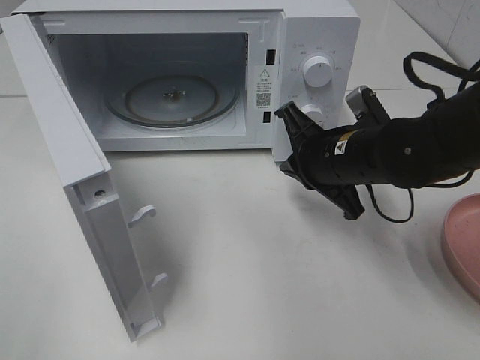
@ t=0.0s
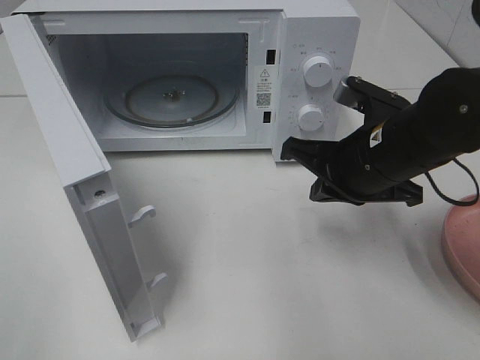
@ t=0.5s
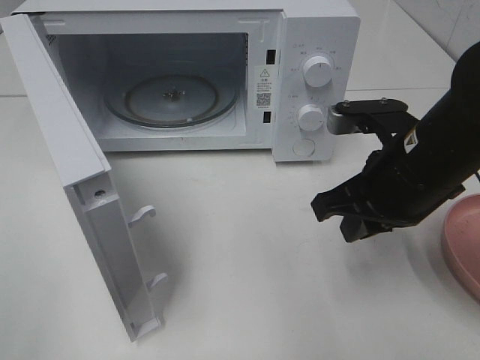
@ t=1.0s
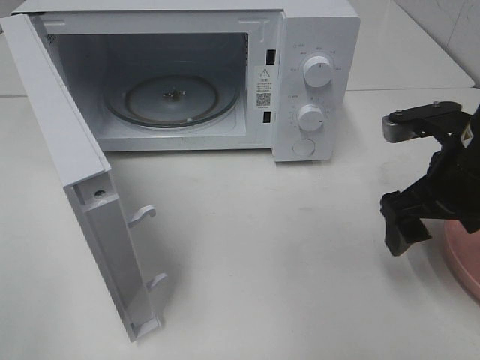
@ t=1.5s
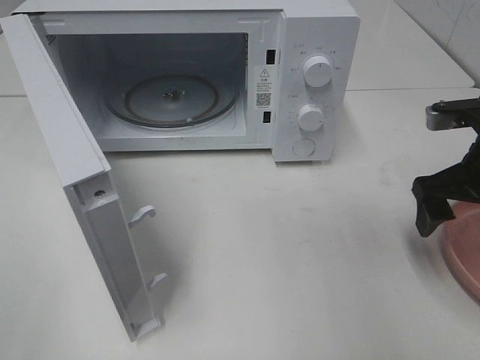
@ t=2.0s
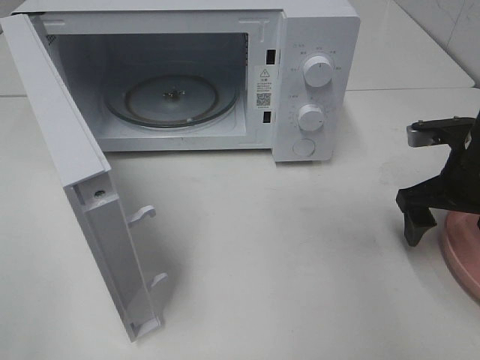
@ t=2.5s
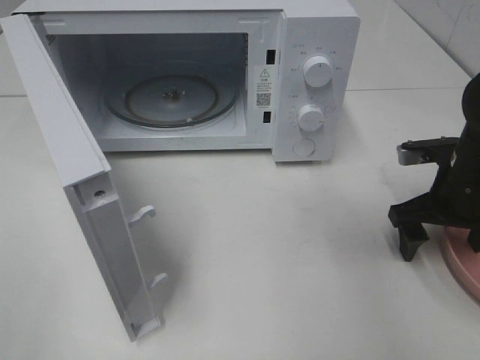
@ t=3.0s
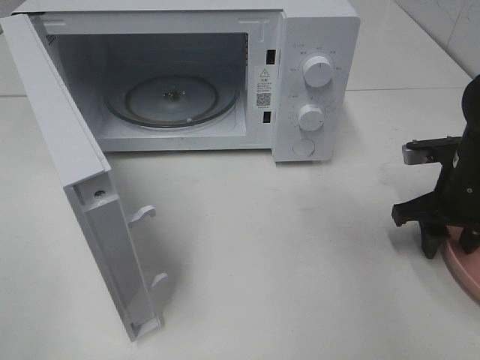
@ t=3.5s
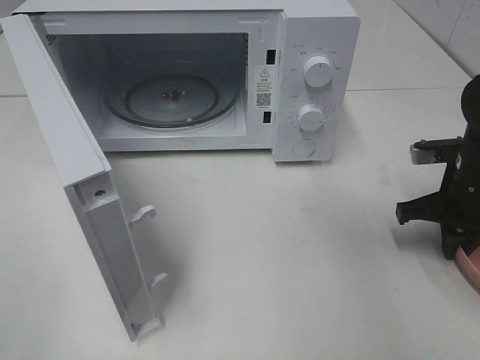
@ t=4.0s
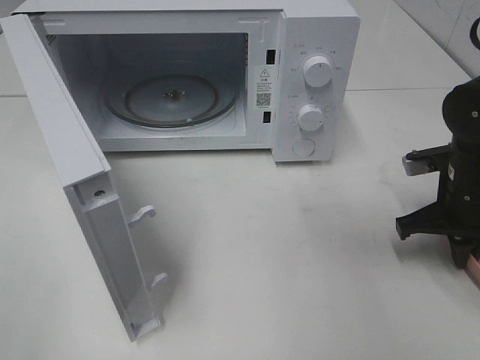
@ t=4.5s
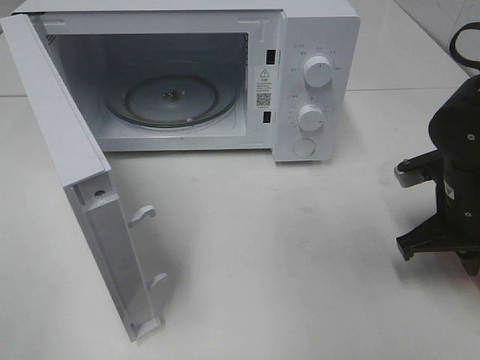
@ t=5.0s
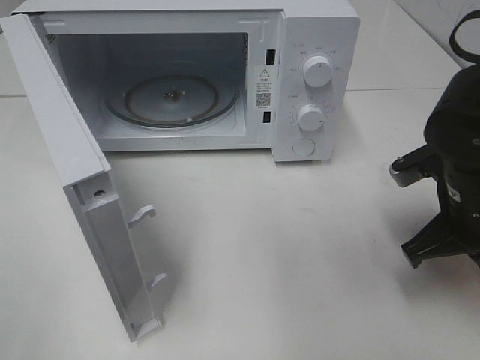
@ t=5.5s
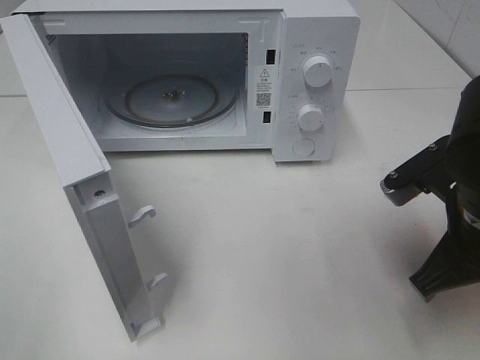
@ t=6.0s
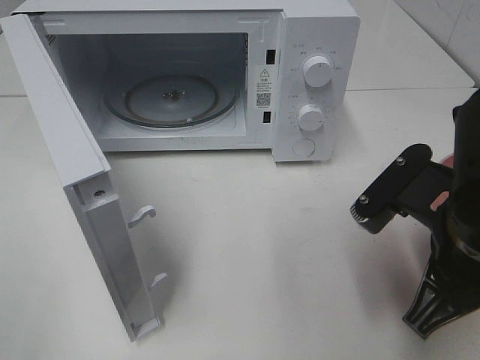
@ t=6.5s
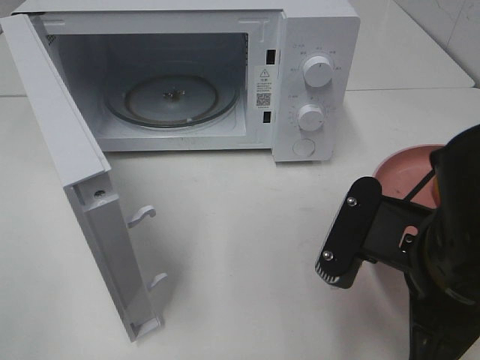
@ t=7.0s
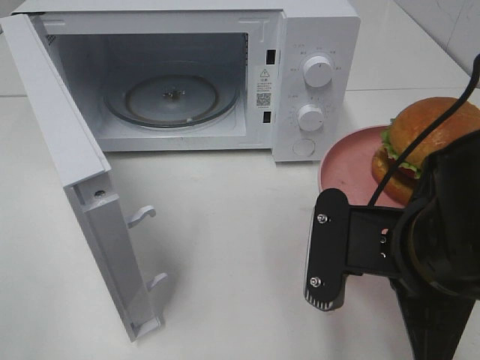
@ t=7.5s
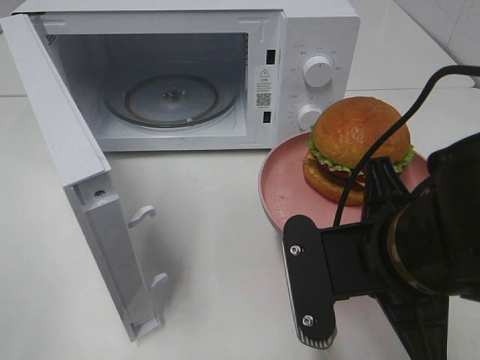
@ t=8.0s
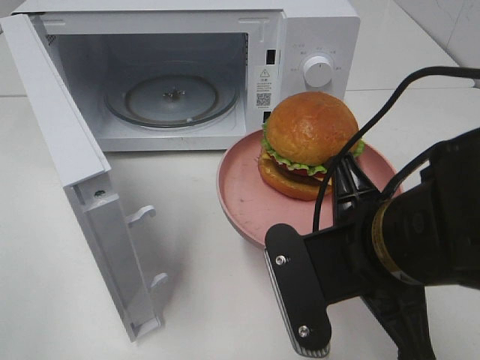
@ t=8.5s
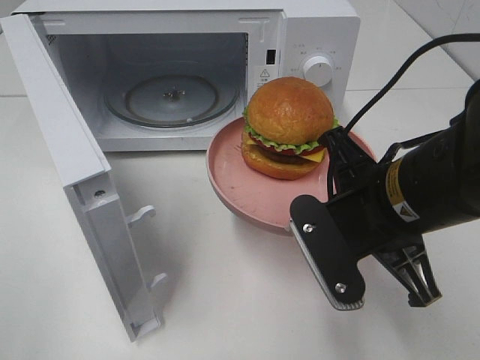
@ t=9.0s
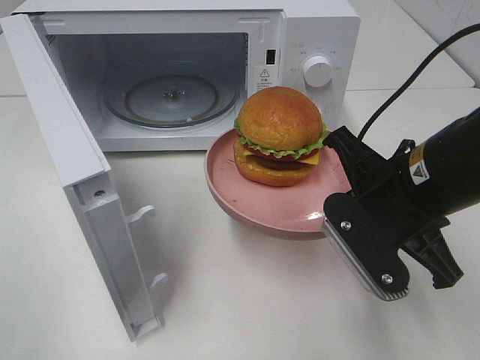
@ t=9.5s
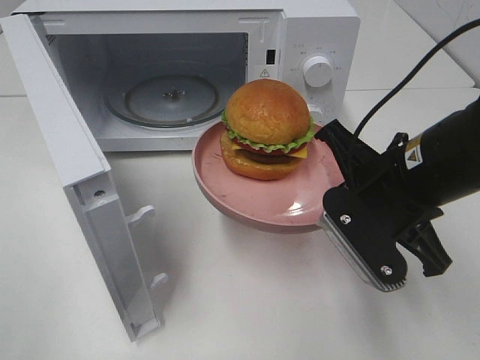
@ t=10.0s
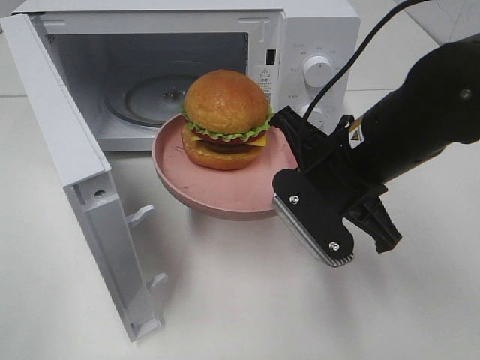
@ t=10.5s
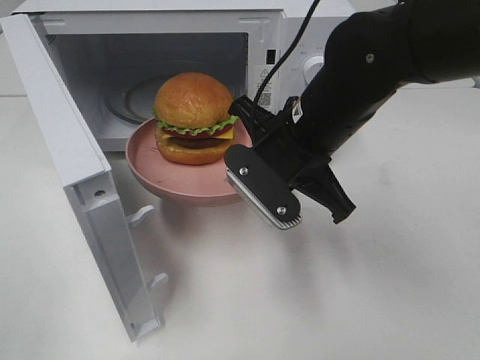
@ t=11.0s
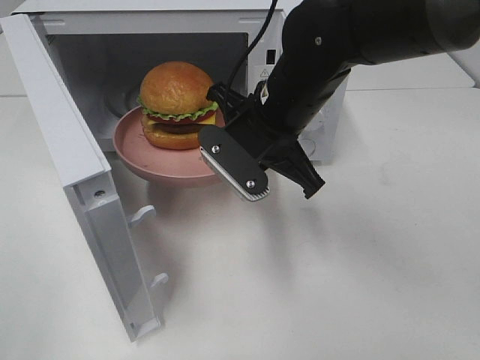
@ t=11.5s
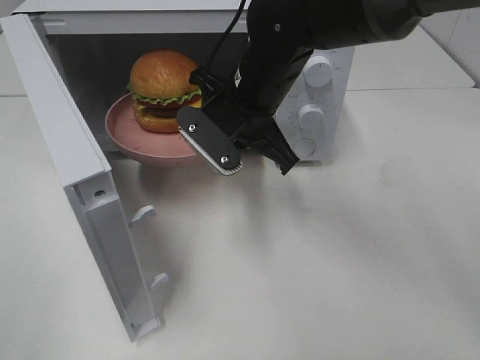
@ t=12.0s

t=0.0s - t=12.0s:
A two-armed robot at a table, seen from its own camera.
Task of the whole recording: Heat the burger.
Step, t=0.0s - t=4.5s: Right hand: grab the plate with the hamburger.
t=0.0s - t=2.0s: The right gripper travels to the right by about 15 cm, and opens.
t=2.0s - t=4.0s: The right gripper is displaced downward by approximately 5 cm, and closes.
t=4.0s - t=6.0s: The right gripper is displaced backward, to the left and upward by roughly 15 cm.
t=6.0s - t=8.0s: The right gripper shifts some 10 cm to the left and backward.
t=8.0s - t=10.0s: The right gripper goes some 10 cm forward.
t=10.0s - t=12.0s: The right gripper shifts about 20 cm forward and to the left.

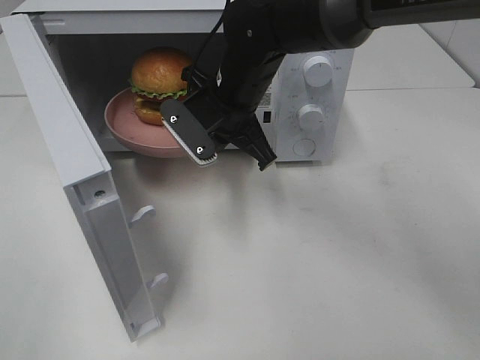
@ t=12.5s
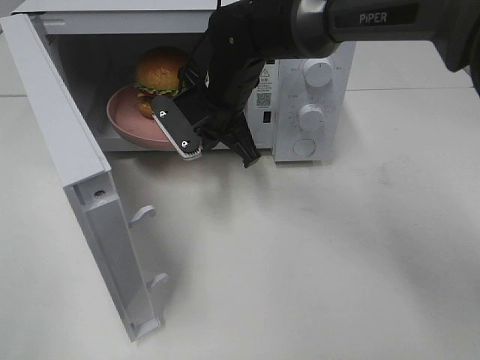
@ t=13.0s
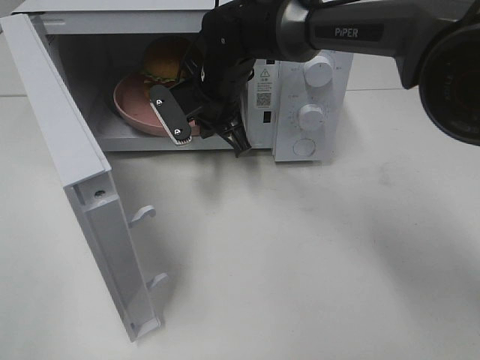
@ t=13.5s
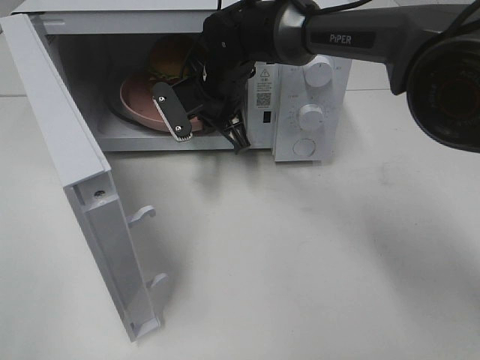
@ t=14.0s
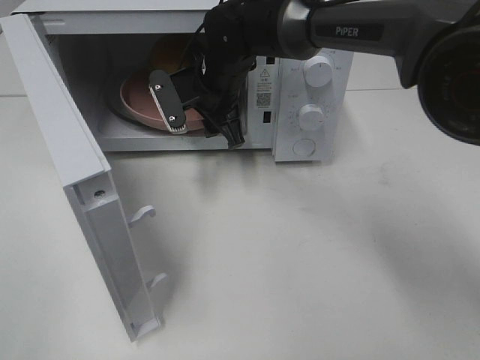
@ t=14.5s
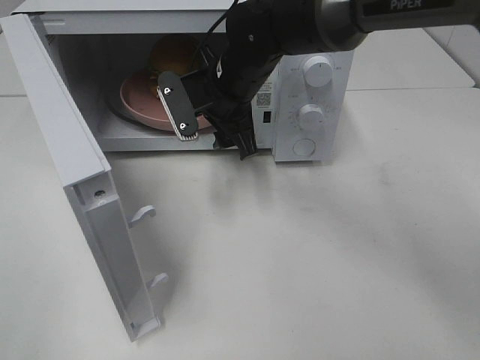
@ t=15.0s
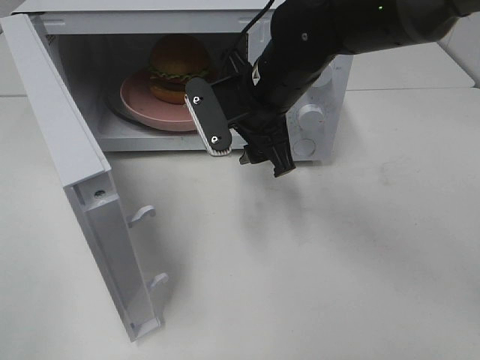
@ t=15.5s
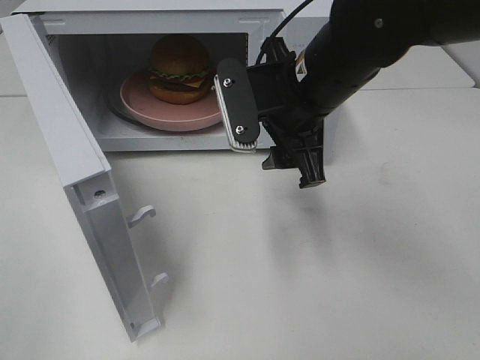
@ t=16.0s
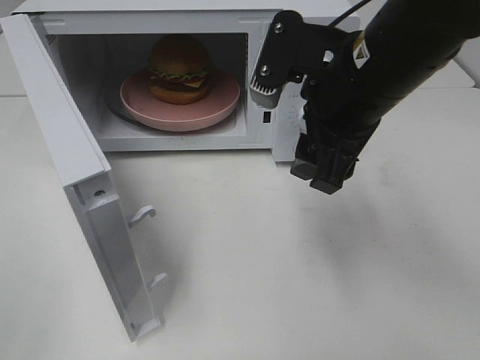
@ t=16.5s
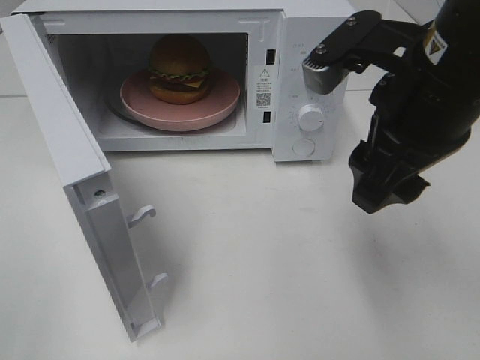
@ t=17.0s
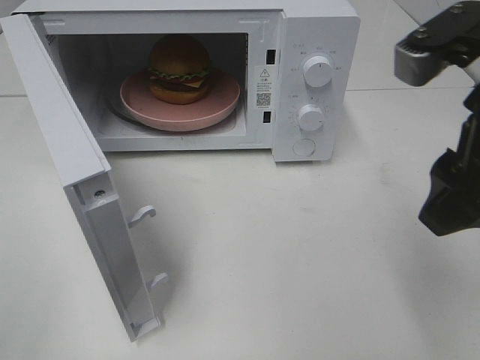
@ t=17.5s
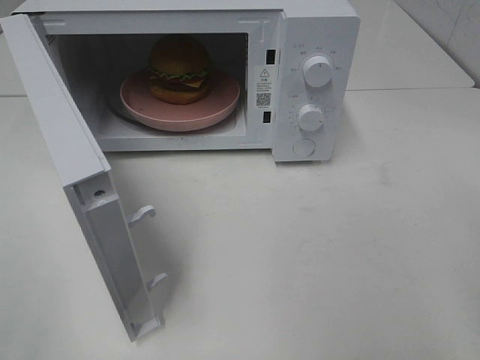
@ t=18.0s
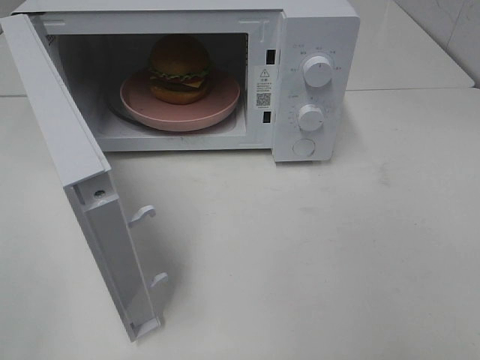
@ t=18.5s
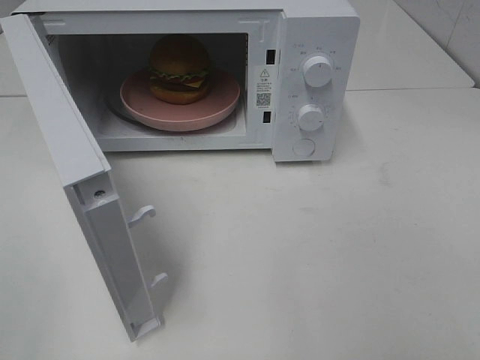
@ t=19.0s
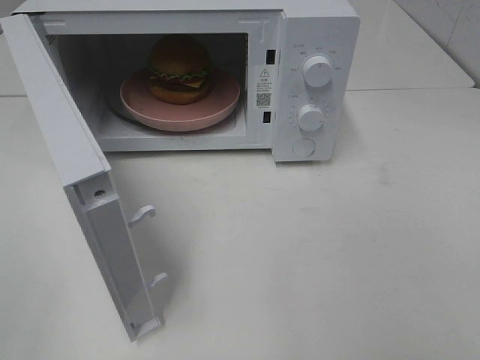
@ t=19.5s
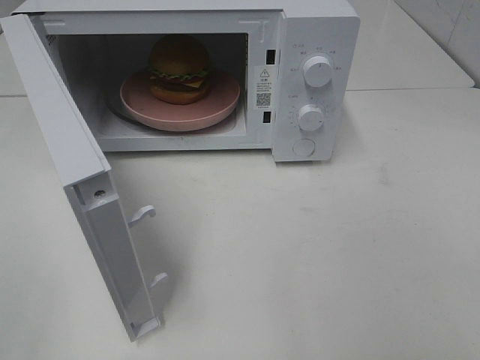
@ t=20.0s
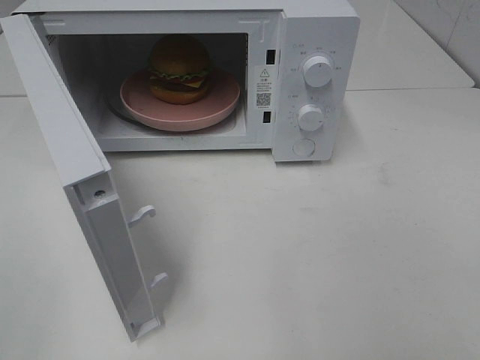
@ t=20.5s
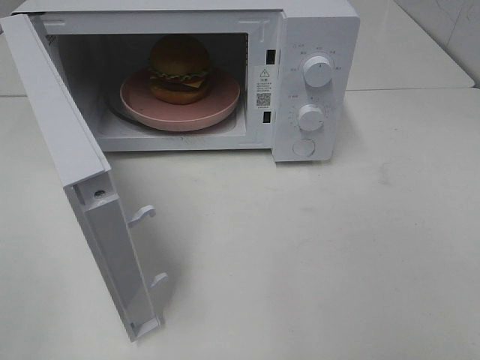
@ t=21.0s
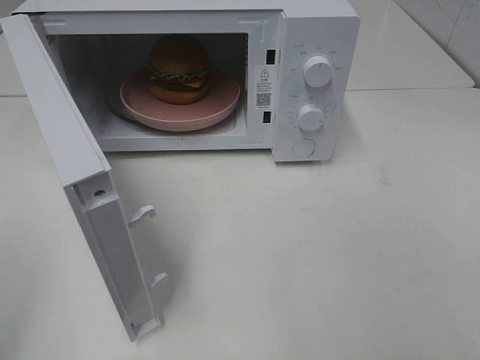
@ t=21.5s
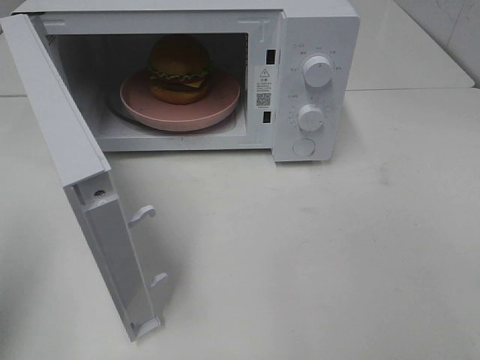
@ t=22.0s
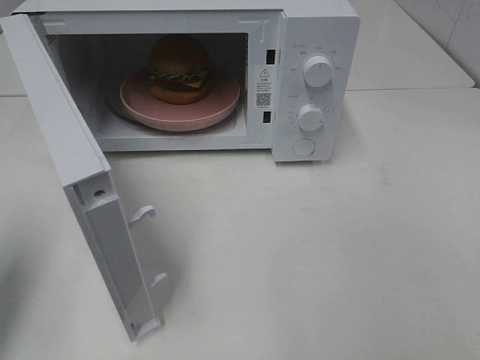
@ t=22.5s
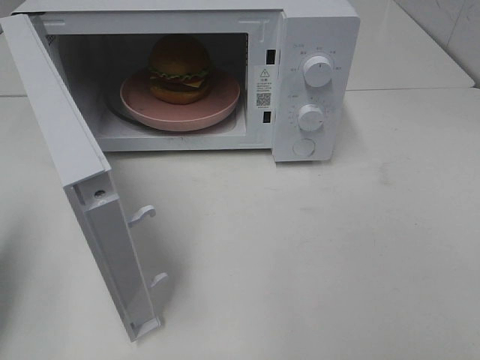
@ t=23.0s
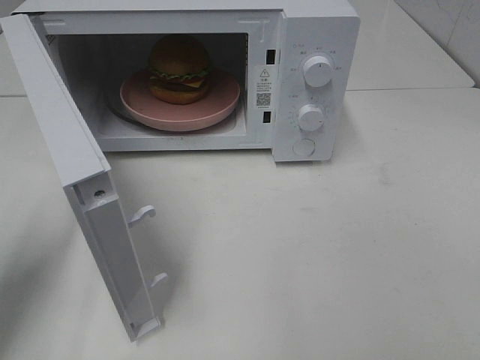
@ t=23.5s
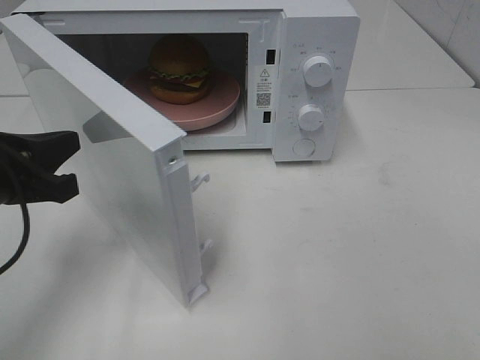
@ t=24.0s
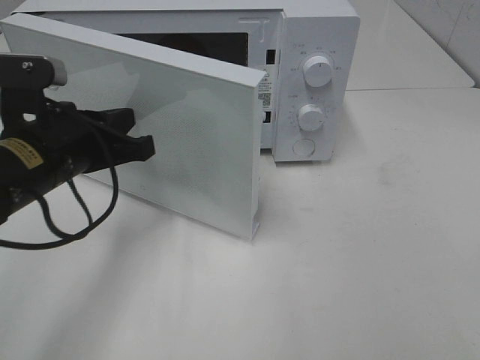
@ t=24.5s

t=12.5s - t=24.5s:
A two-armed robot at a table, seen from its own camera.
Task of the whole recording: Heat the burger.
Step, t=12.5s - t=14.5s: Right hand: place the plate in the microwave.
t=12.5s - t=14.5s: The right gripper shifts some 5 cm forward, and opens its fingers.
t=14.5s - t=16.5s: The right gripper moves backward, to the right and upward, approximately 25 cm.
t=16.5s - t=18.5s: The right gripper travels backward and to the right by roughly 25 cm.
t=20.5s - t=22.5s: The left gripper is displaced forward by some 15 cm, and closes up.
t=22.5s - t=24.5s: The left gripper shifts roughly 20 cm to the right, forward and downward.

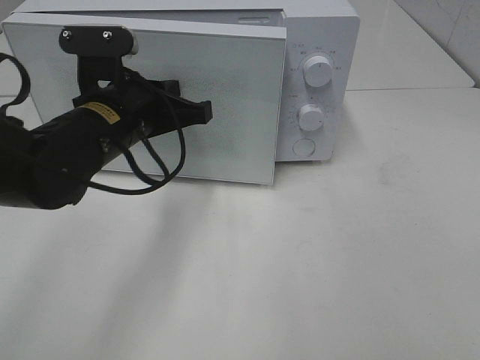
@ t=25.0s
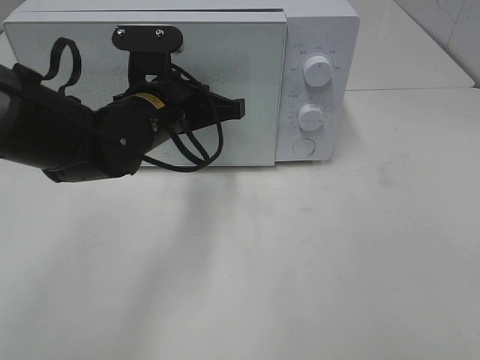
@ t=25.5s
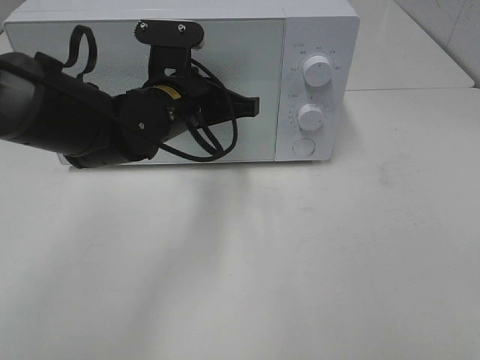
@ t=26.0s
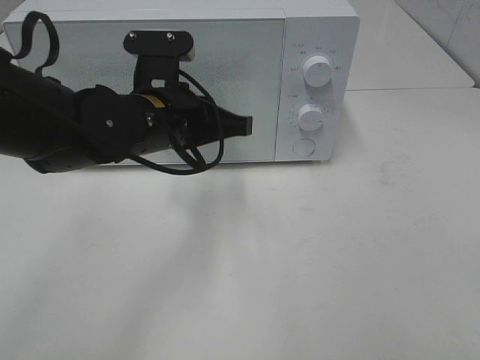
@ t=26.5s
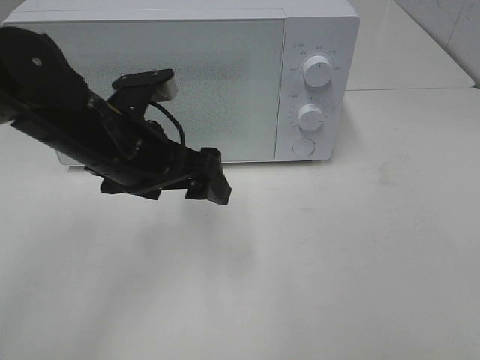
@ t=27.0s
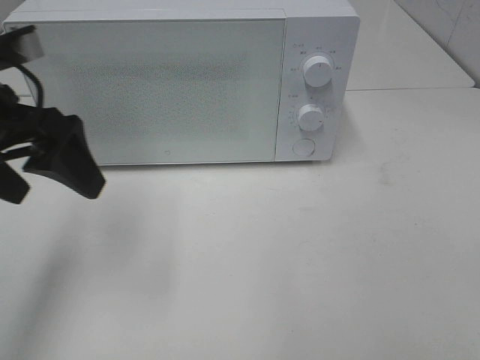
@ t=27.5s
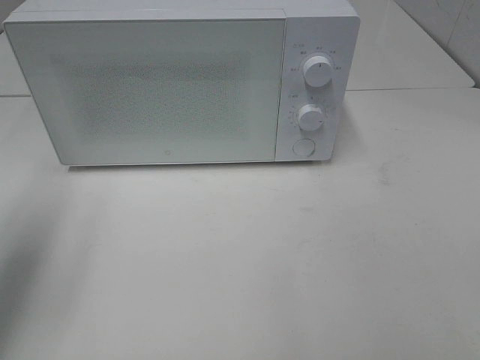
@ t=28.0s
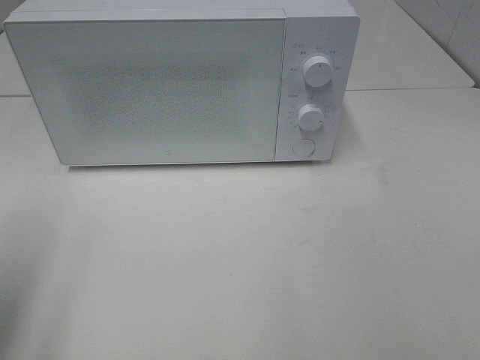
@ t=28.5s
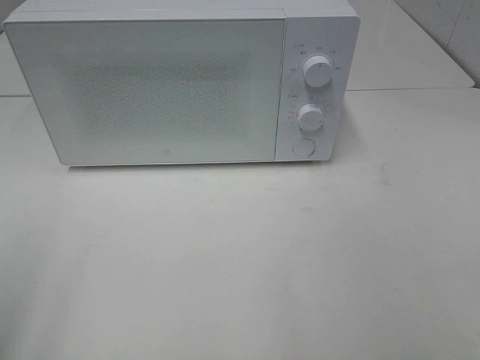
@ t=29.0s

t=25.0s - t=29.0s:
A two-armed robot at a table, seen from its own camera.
Task of the whole recording: Heat the burger.
t=25.0s - t=27.0s: The left gripper opens its fingers.
t=27.0s - t=29.0s: The left gripper is displaced backward, to the left and upward by roughly 30 cm.
